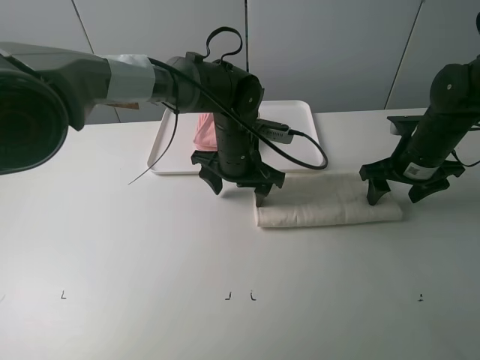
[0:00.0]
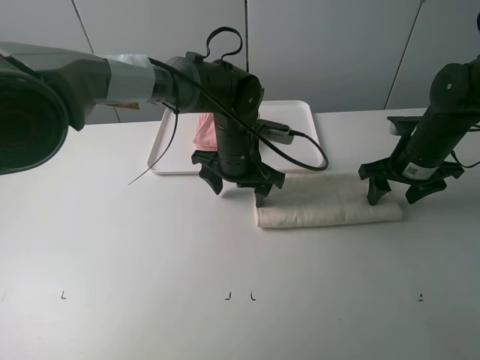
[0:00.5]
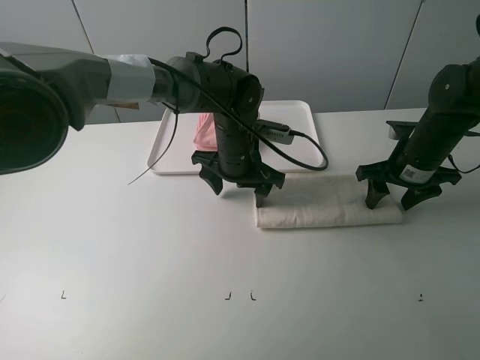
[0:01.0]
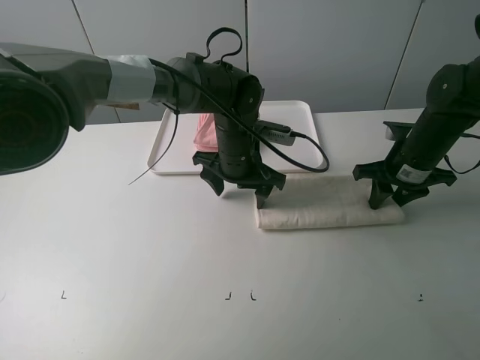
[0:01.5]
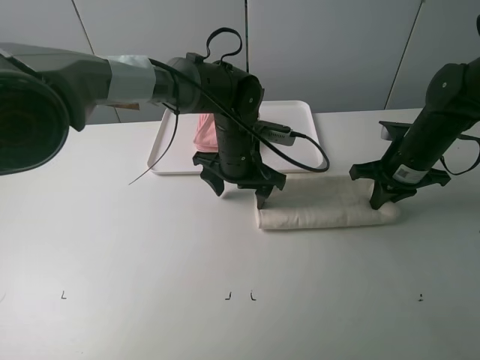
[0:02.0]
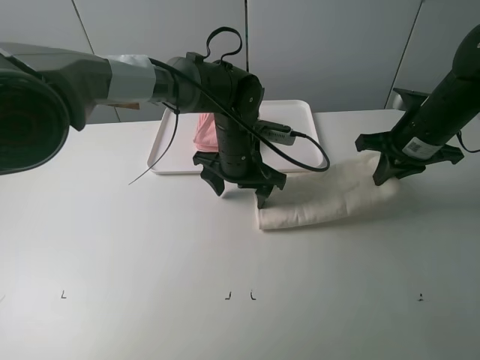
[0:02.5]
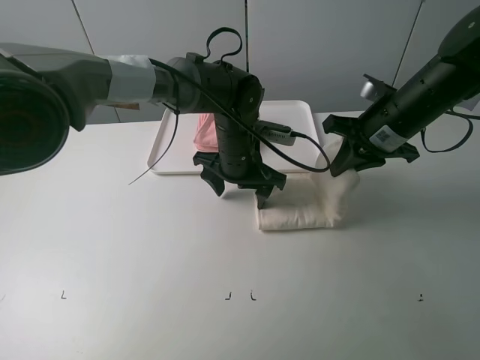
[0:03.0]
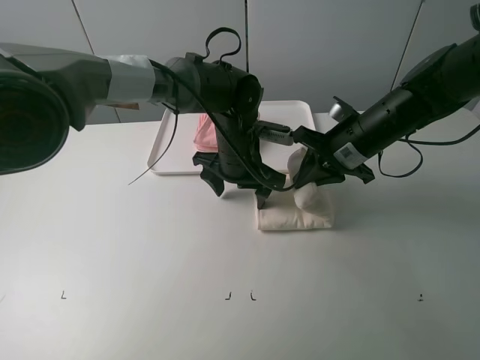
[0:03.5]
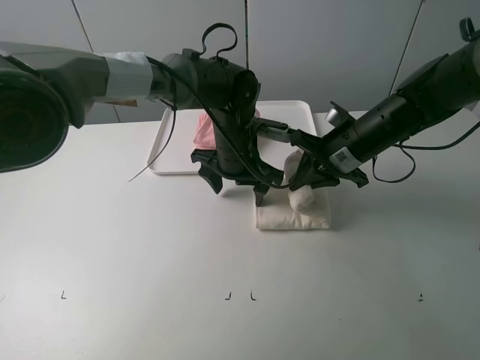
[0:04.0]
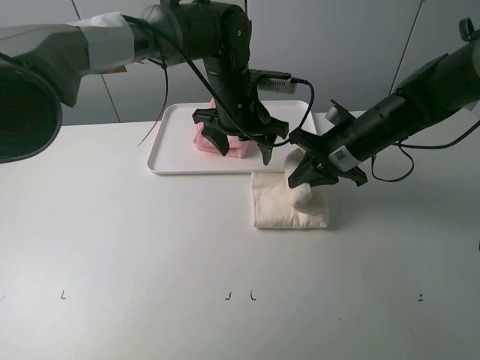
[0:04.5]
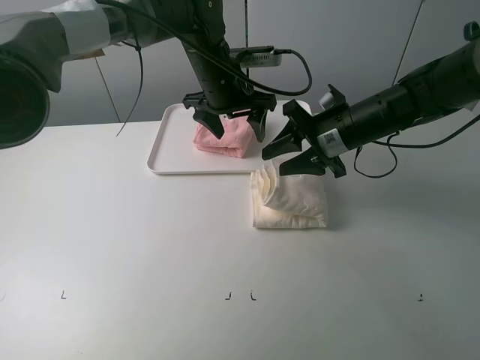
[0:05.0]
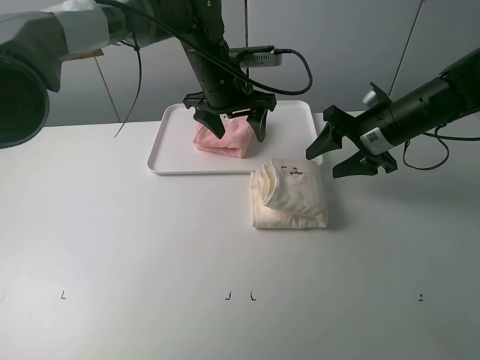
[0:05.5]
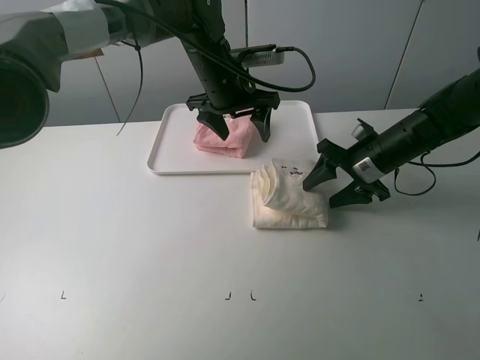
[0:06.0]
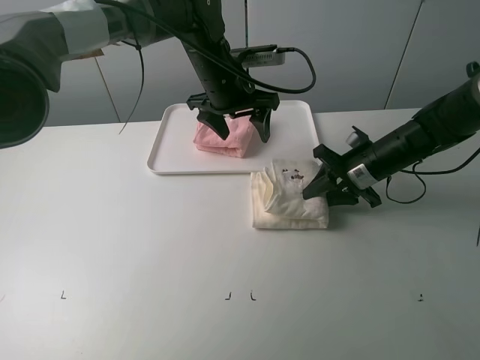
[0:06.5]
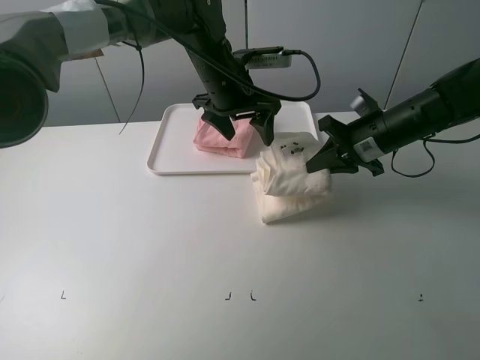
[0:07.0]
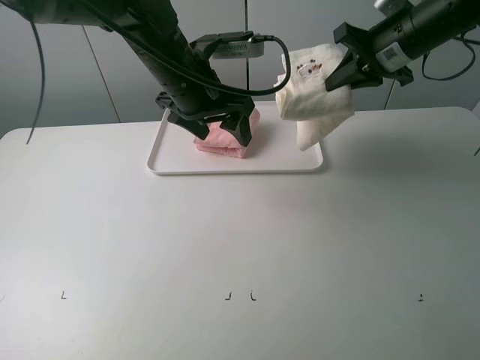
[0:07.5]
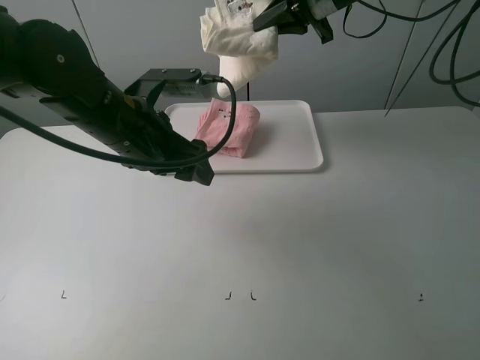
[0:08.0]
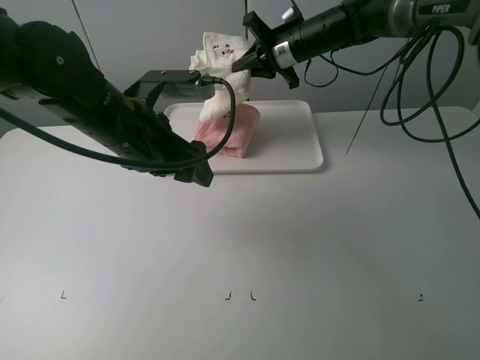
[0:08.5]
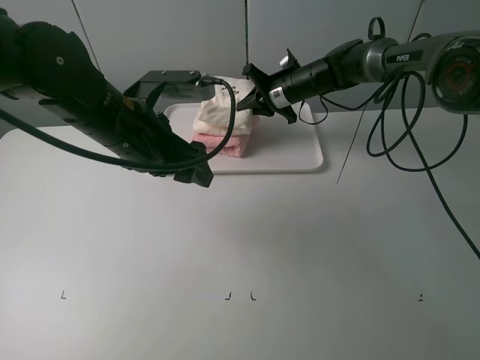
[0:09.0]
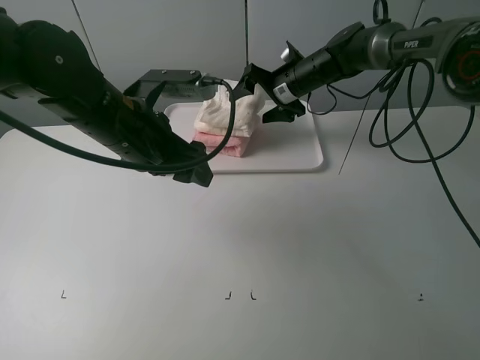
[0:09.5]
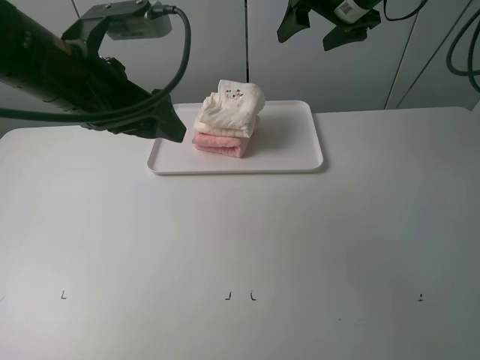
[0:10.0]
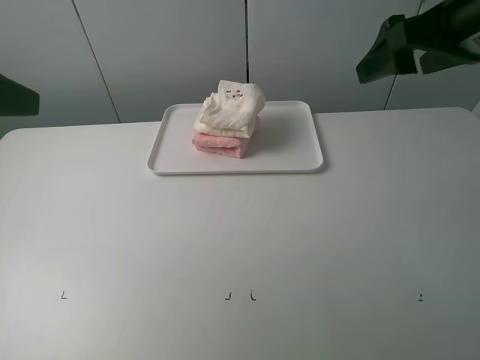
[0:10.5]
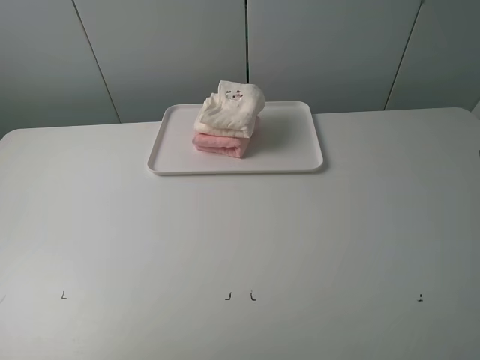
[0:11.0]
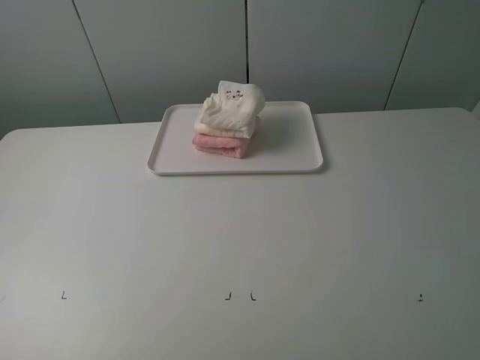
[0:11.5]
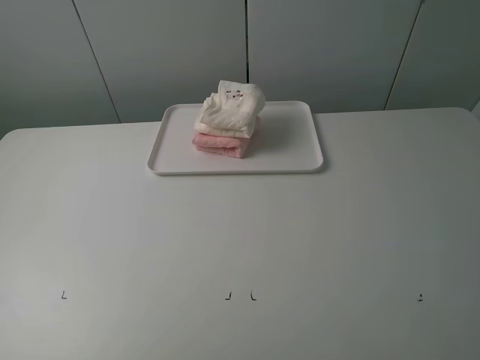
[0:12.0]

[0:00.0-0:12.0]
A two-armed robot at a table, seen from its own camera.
Task of the whole recording: fold one of the towels by two grippers and place it on the tray,then fold another towel by two grippers and place it on the folded towel.
Step, 0:02.0 to 0:05.0: Fold the white towel from right to left with right gripper.
Step, 0:05.5 to 0:06.5: Grasp the white towel with the right gripper.
Step, 0:07.0 to 0:09.5: Place the white towel on the pink towel with the right gripper.
0:00.0 to 0:02.0: The right gripper closes up.
0:02.0 to 0:04.0: The right gripper shifts roughly 10 cm to the left.
0:04.0 to 0:06.0: The left gripper moves upward and forward, roughly 10 cm. The right gripper moves approximately 5 cm, and opens its fingers.
0:06.0 to 0:08.0: The left gripper shifts about 20 cm backward and to the left; the right gripper heads upward, forward and to the left, covering roughly 25 cm, and closes.
0:08.0 to 0:10.0: The right gripper travels downward and back again, some 15 cm each way, and opens up. The left gripper is displaced upward by approximately 5 cm.
0:10.0 to 0:12.0: The right gripper shifts approximately 40 cm backward; the left gripper goes about 30 cm backward and to the left.

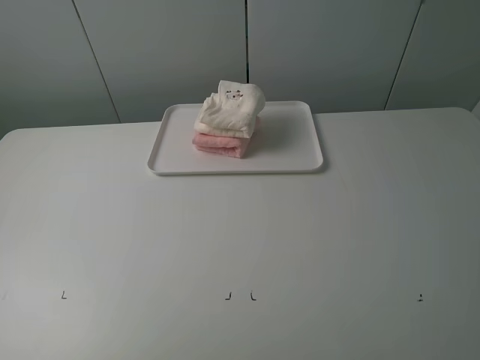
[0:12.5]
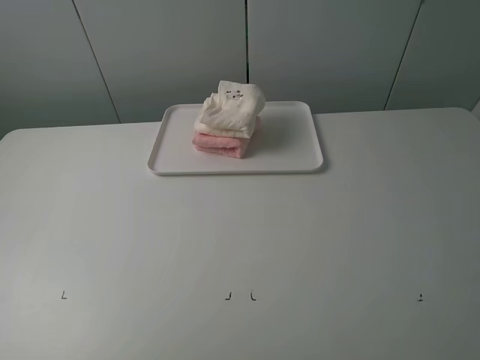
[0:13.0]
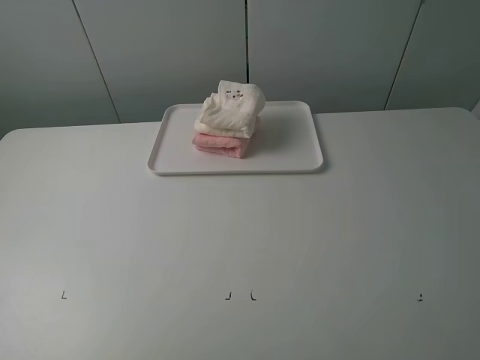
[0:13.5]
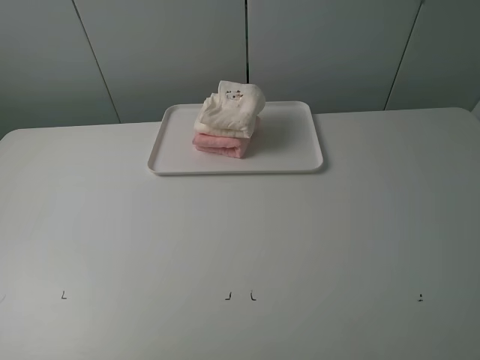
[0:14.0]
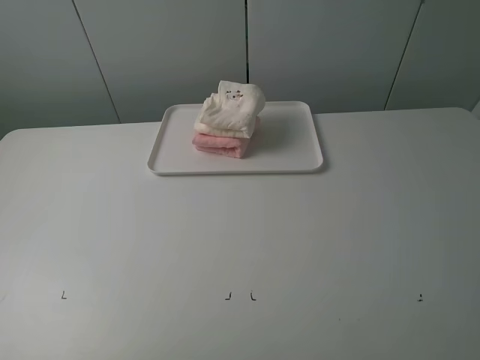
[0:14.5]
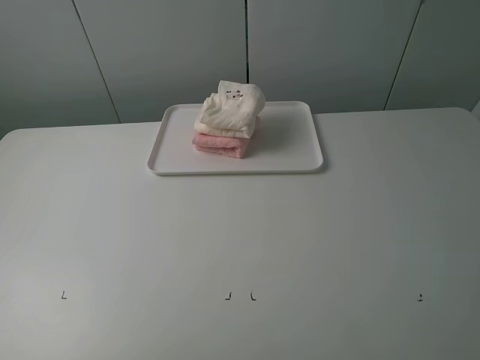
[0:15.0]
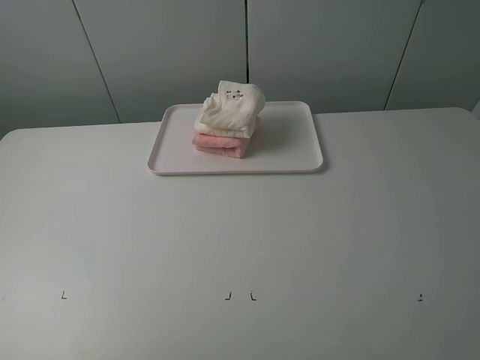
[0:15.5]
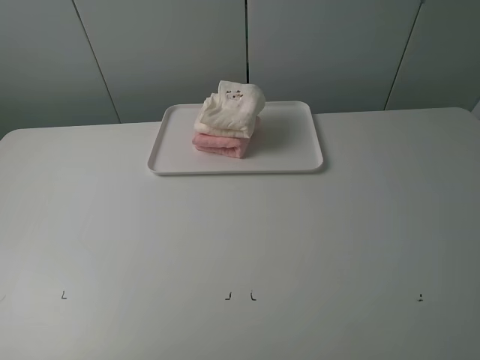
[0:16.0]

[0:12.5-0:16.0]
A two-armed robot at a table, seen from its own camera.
Task of the whole recording: fold one of the towels by two grippers and place it on the tray,then fold another towel by two grippers and place it on the folded towel.
0:14.5 to 0:16.0: Neither gripper changes place.

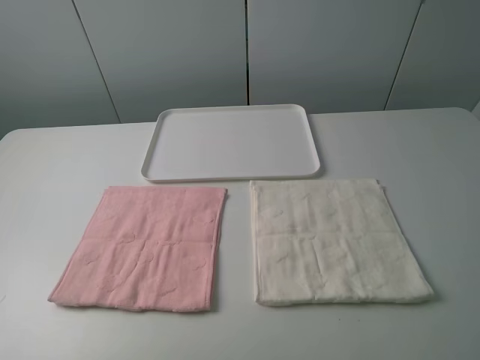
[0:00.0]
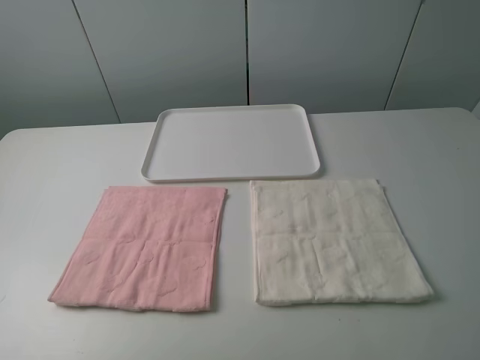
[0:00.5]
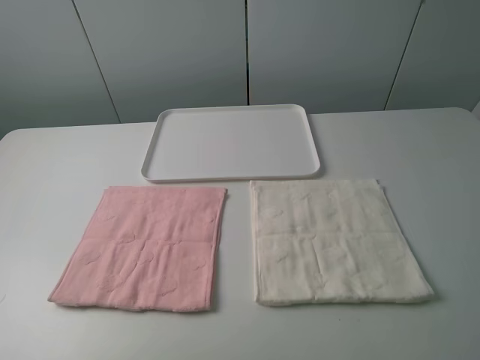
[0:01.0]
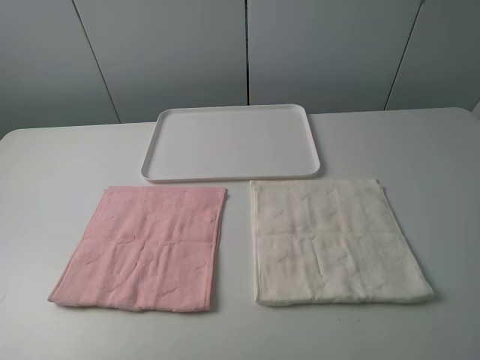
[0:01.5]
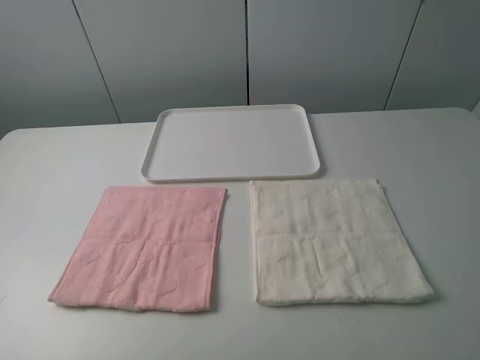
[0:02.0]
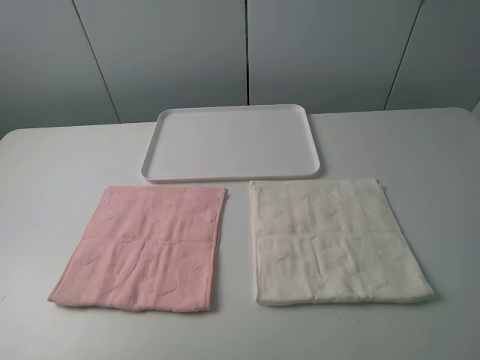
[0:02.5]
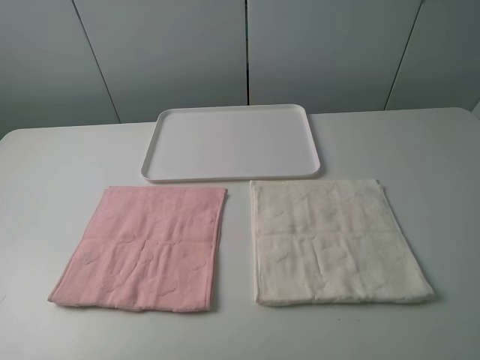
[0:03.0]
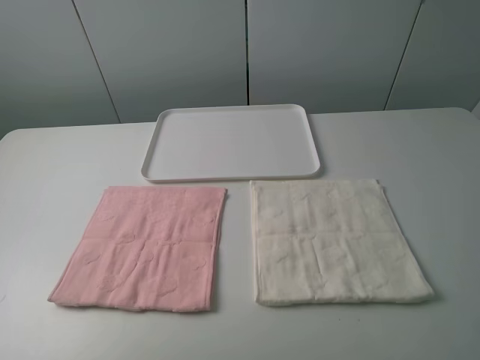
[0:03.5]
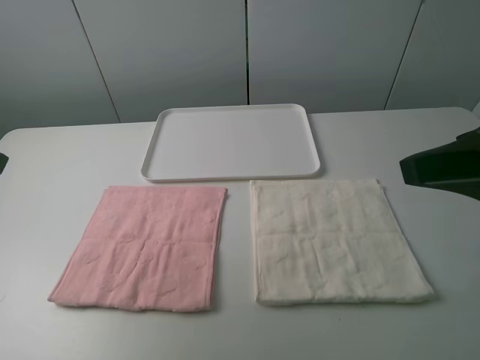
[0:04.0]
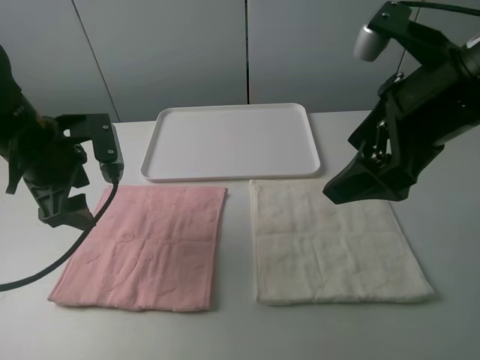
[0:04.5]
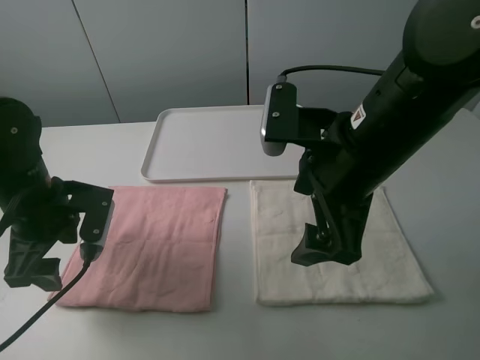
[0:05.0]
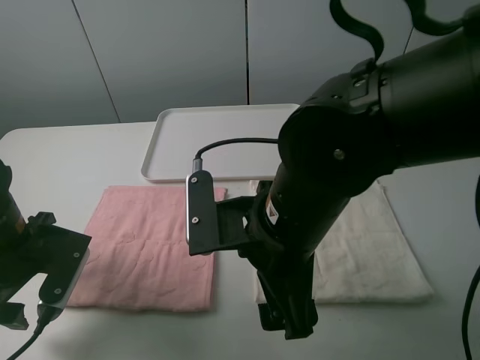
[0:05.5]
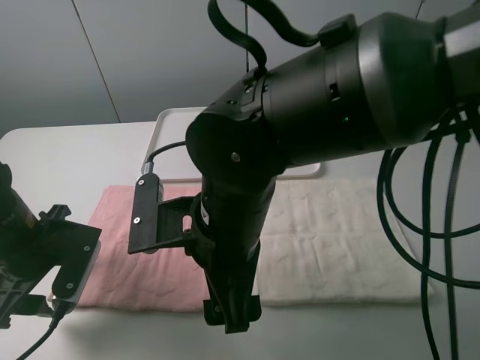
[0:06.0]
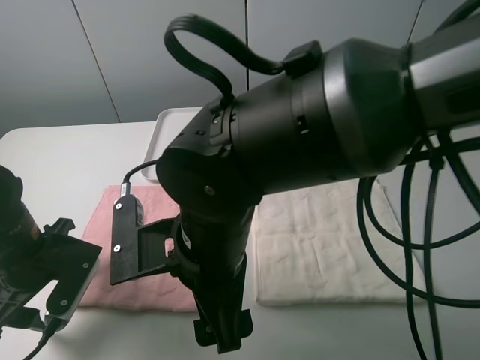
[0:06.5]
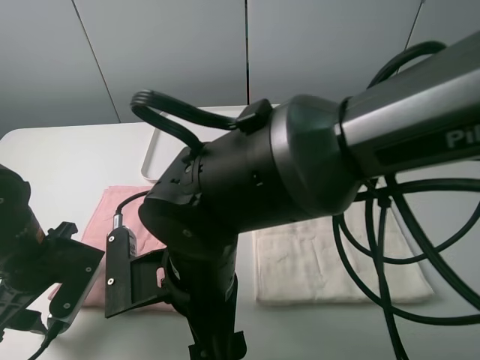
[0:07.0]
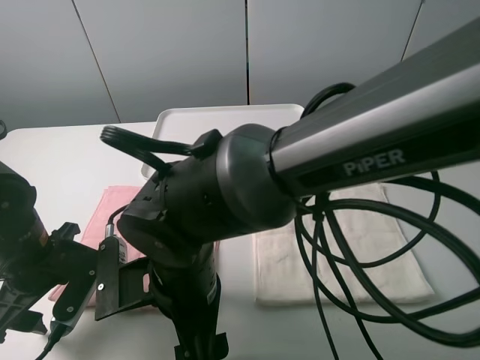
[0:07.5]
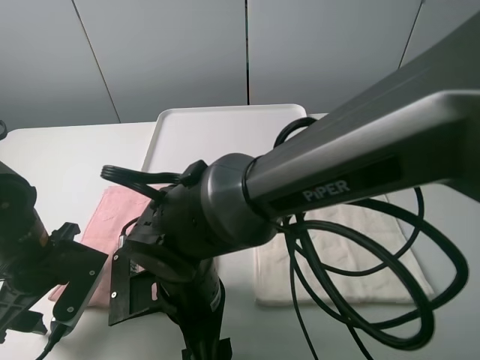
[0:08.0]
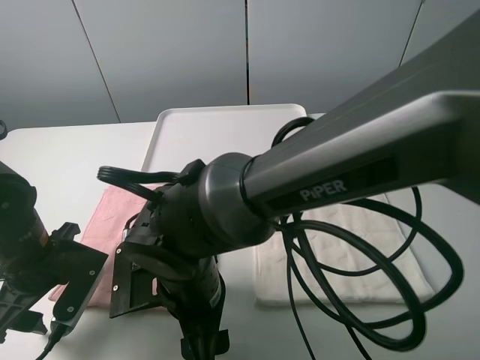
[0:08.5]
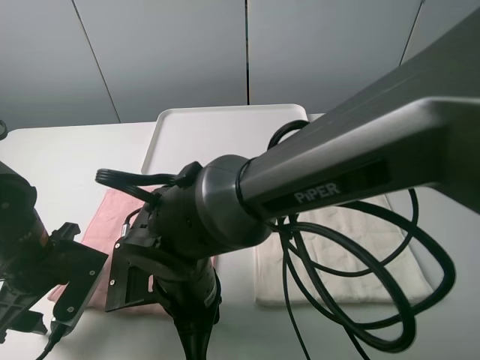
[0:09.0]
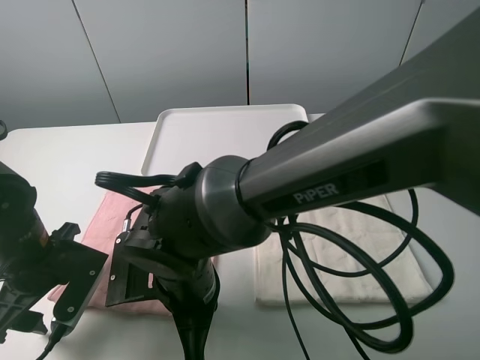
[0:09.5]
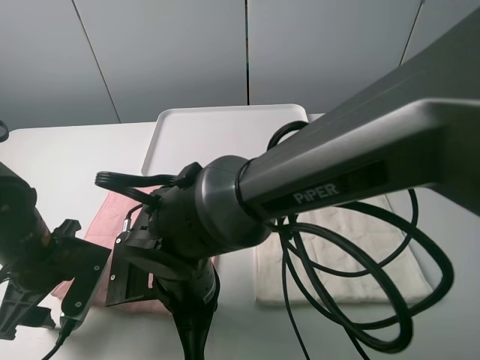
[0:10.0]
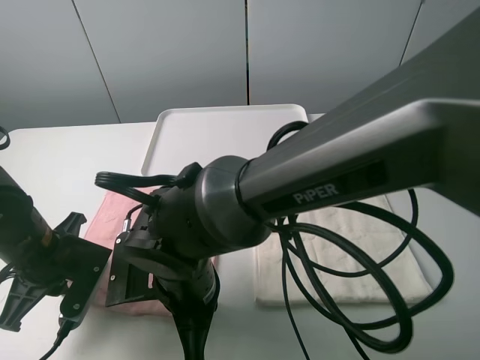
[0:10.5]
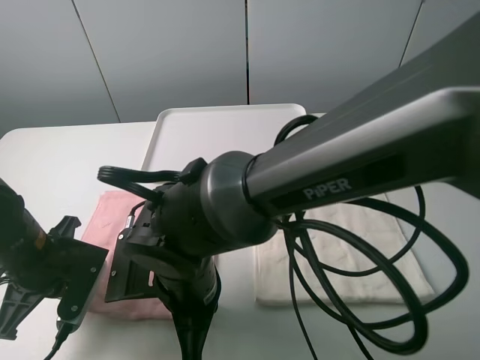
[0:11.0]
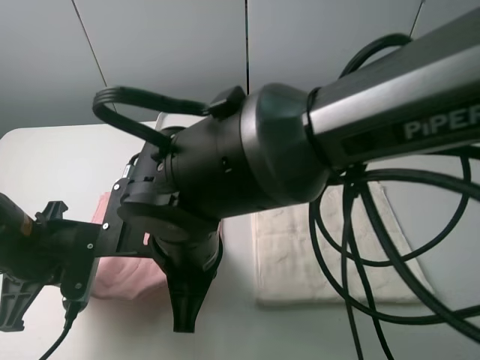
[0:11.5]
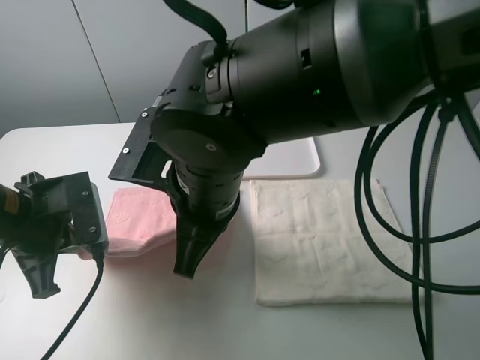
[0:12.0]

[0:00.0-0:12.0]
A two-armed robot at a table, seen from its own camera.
Task of the whole recording: fold one of the towels by two grippers and place it on the tray,then fold another towel by two grippers and place it on the folded towel.
Step, 0:00.0 to 0:10.5: Grasp the pink towel with the left gripper.
0:00.0 to 0:02.0: Both grippers stay about where they are.
0:02.0 to 0:04.0: Both grippers move forward, roughly 15 cm.
0:04.0 to 0:06.0: The left gripper travels downward by approximately 20 cm, while the right gripper shifts approximately 30 cm to the left and downward.
0:06.0 to 0:08.0: The right gripper goes roughly 10 cm downward.
0:08.0 to 0:10.0: The right gripper closes.
0:10.0 to 0:12.0: The left gripper goes roughly 5 cm upward, and closes up. The right gripper is displaced upward by roughly 10 cm.
